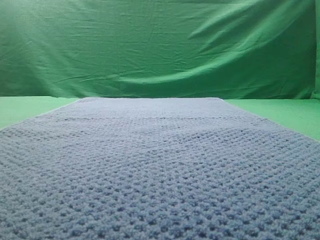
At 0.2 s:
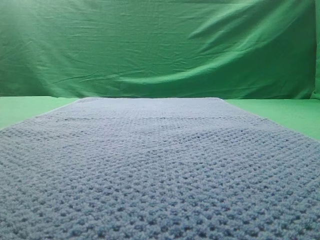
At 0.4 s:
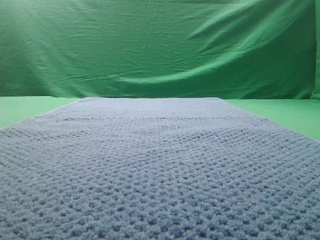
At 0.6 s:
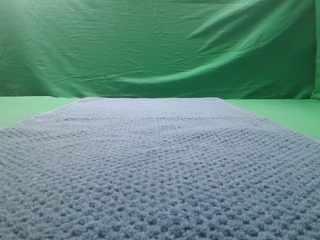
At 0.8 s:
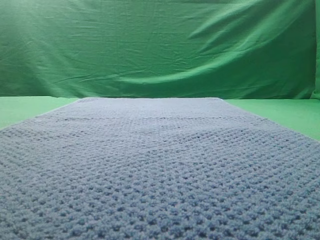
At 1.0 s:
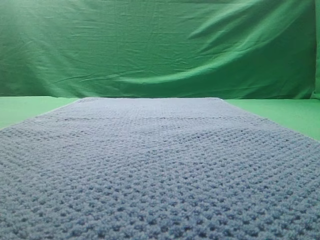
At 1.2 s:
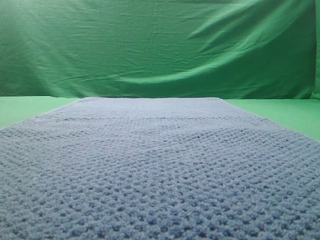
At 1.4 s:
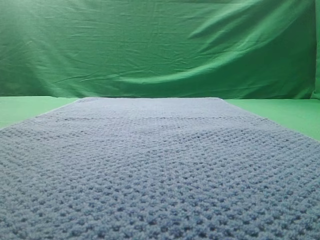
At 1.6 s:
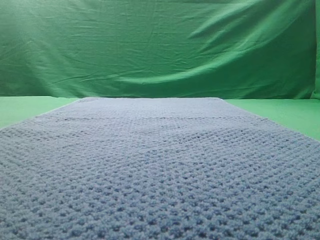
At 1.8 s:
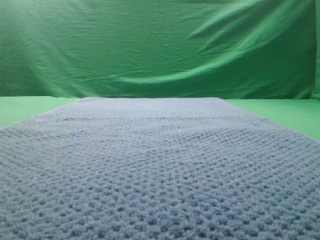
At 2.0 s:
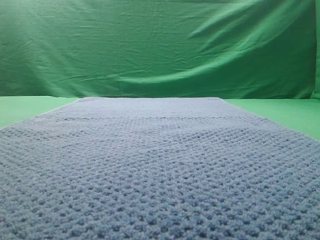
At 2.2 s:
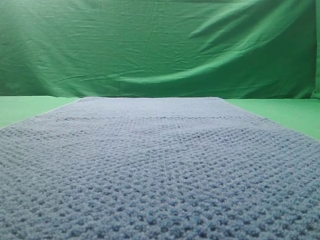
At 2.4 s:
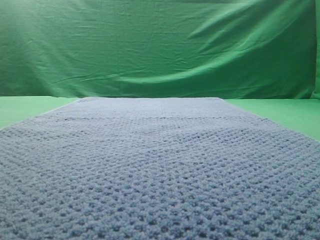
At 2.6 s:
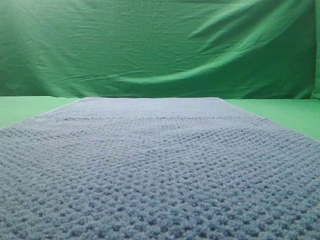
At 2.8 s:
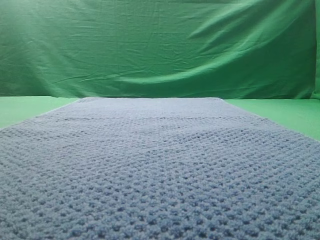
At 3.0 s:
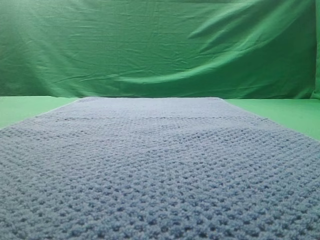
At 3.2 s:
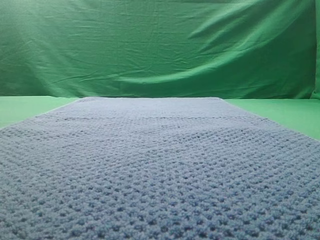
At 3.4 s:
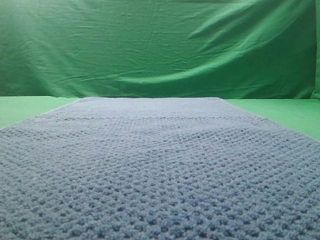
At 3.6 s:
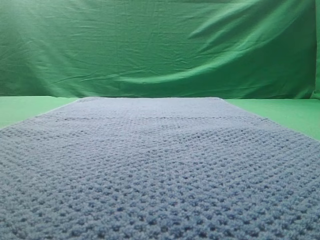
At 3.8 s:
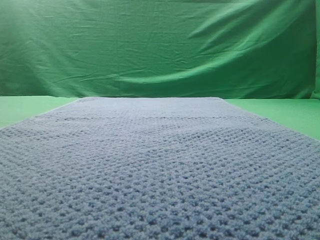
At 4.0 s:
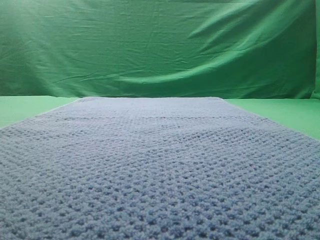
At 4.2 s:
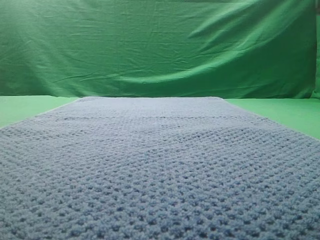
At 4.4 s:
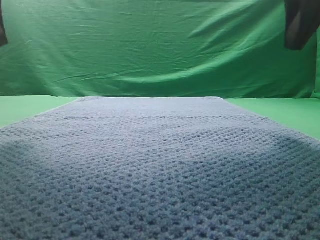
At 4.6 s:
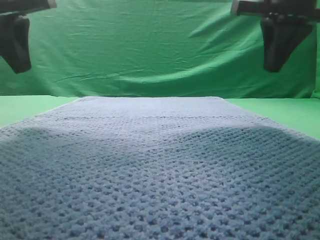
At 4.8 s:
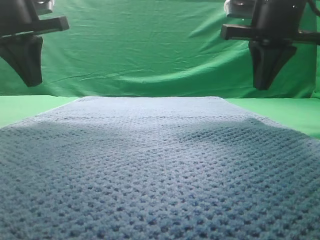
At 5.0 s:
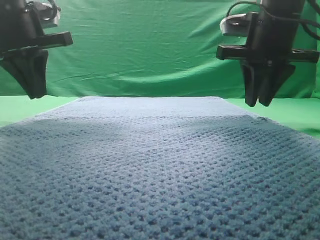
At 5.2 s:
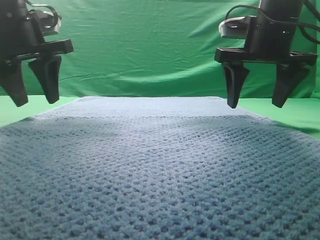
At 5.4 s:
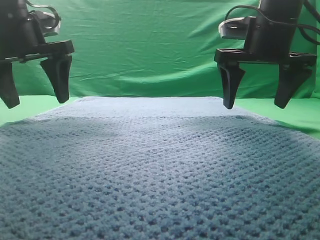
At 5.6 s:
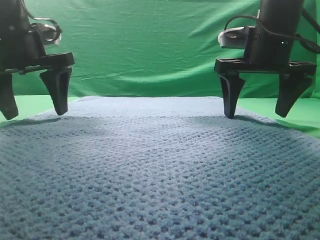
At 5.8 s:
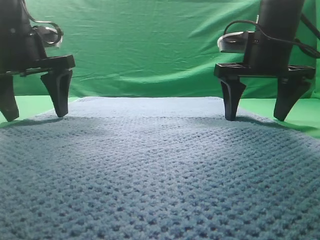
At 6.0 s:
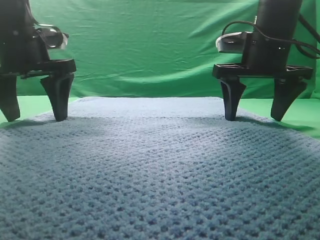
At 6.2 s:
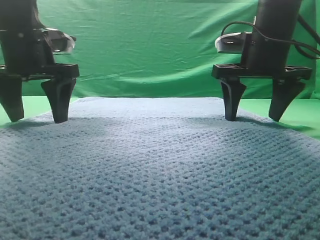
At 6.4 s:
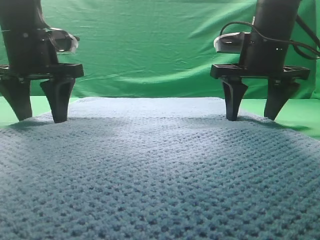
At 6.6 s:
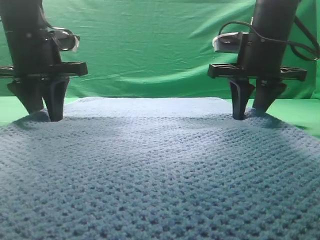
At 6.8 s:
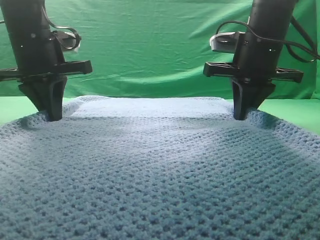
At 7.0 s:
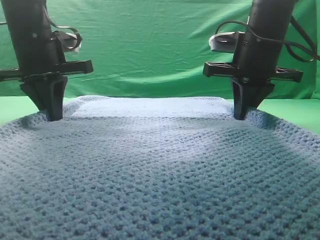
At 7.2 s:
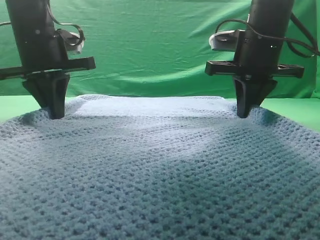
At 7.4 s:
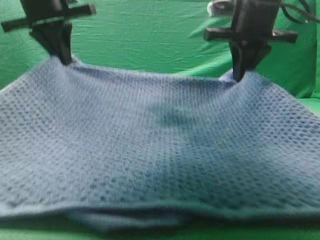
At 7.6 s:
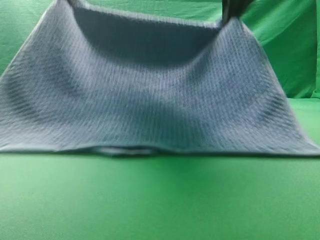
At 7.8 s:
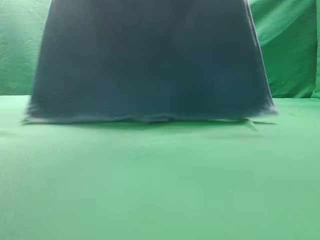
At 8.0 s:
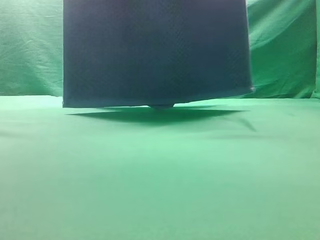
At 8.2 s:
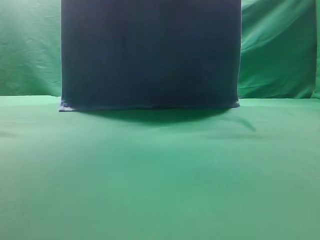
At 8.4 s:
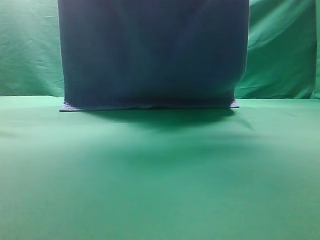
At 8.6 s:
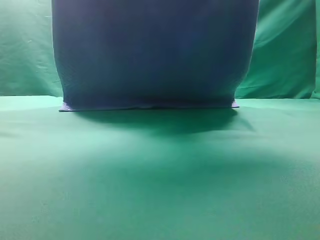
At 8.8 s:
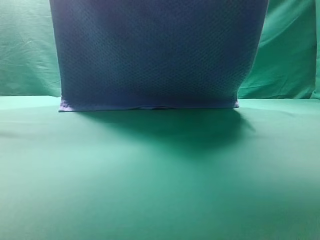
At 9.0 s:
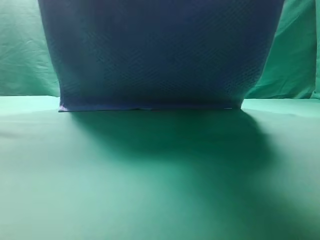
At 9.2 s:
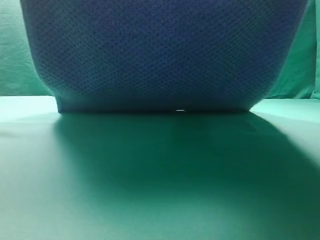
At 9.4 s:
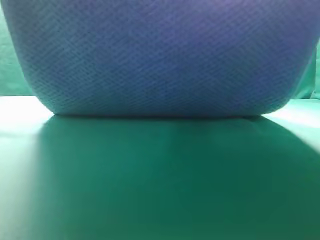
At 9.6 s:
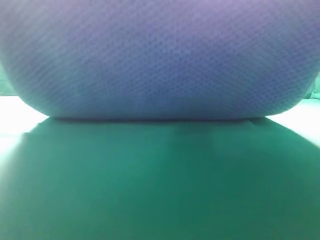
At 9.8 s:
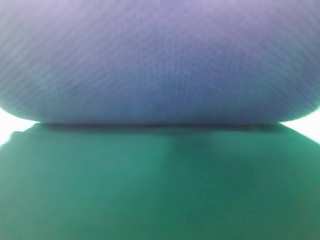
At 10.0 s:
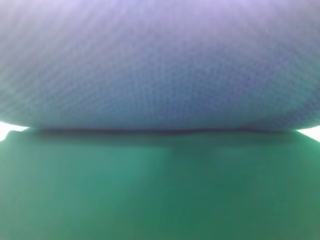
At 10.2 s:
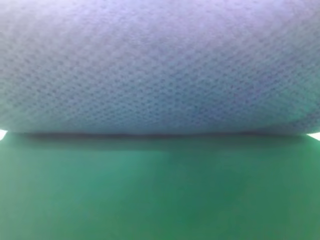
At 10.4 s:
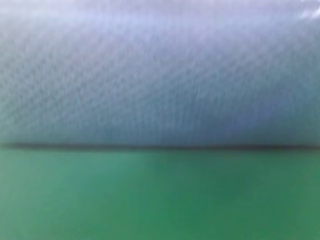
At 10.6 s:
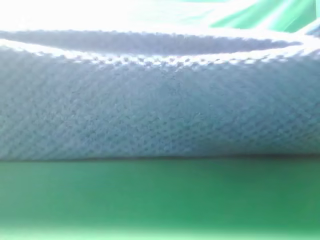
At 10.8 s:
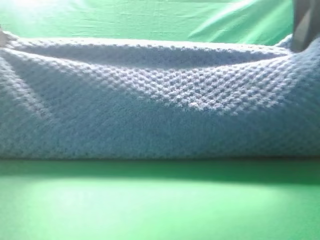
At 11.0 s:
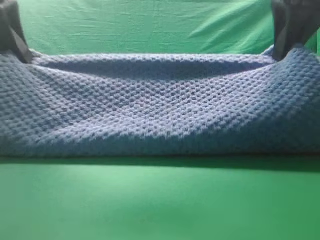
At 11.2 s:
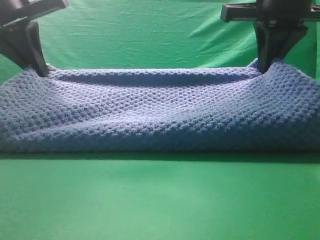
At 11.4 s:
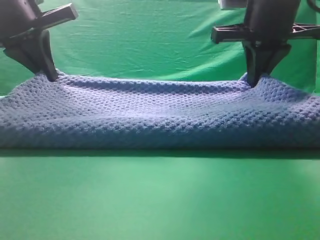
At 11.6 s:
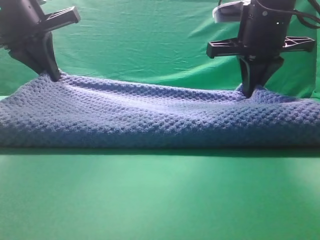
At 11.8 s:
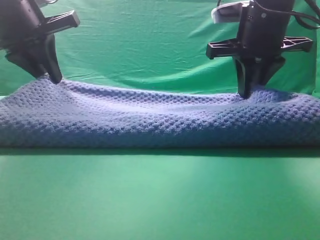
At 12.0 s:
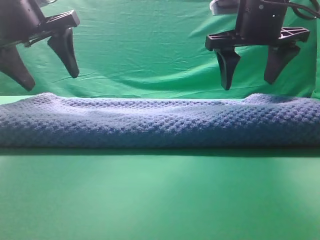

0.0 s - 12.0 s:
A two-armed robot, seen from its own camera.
Task of the whole recording: fold the towel on the table twice.
Step, 0.0 s - 7.8 s: pick up the towel with two arm.
Step, 8.0 s - 12.0 s: Fold the towel twice on the table.

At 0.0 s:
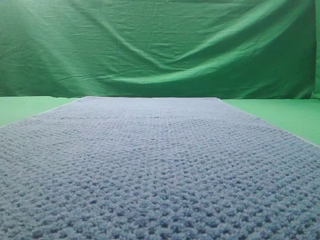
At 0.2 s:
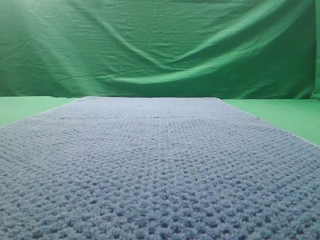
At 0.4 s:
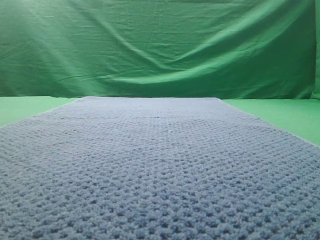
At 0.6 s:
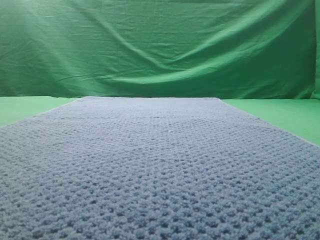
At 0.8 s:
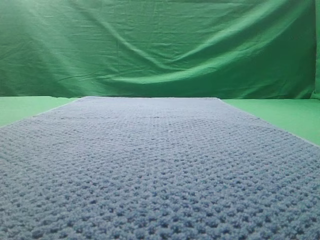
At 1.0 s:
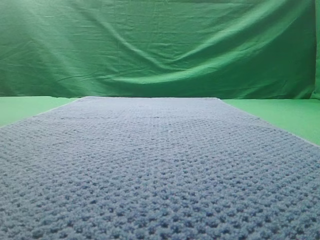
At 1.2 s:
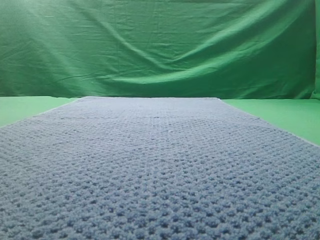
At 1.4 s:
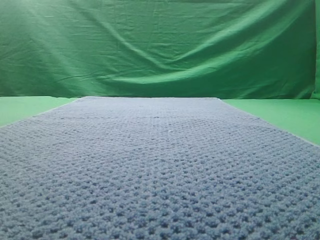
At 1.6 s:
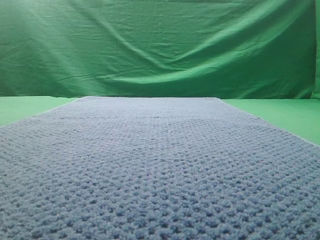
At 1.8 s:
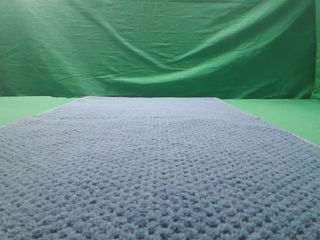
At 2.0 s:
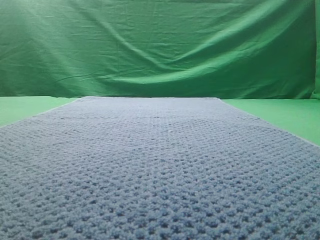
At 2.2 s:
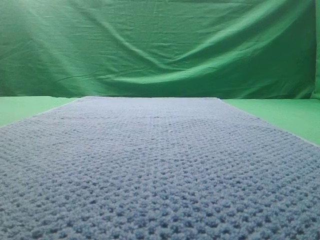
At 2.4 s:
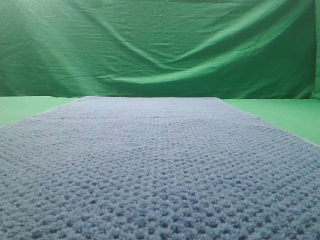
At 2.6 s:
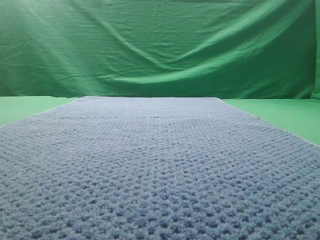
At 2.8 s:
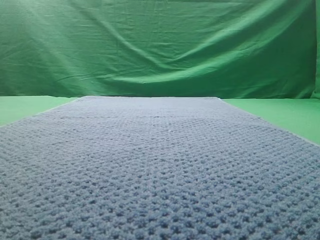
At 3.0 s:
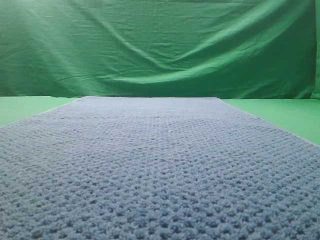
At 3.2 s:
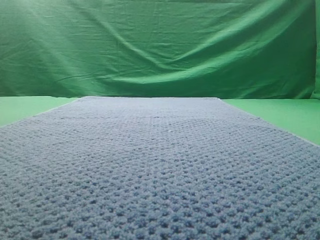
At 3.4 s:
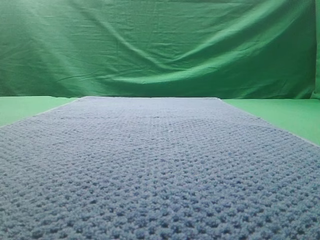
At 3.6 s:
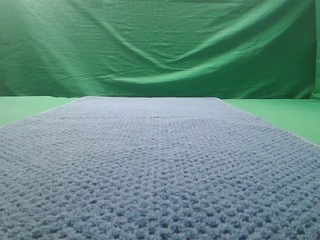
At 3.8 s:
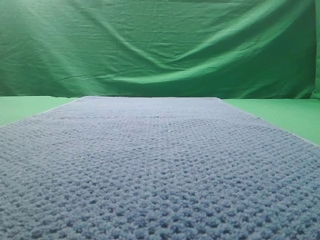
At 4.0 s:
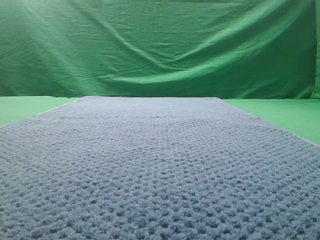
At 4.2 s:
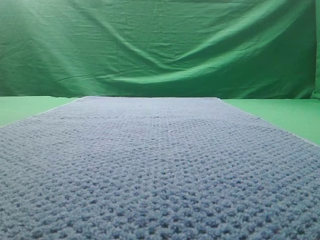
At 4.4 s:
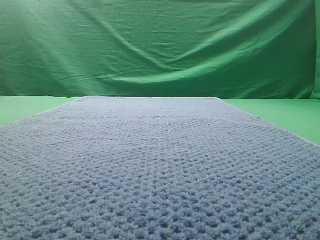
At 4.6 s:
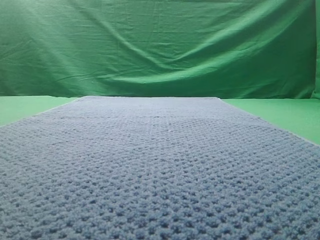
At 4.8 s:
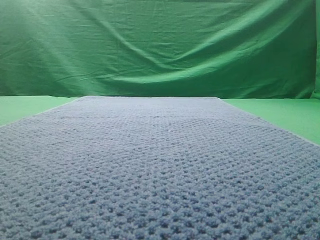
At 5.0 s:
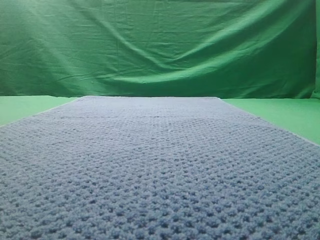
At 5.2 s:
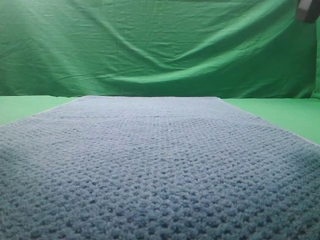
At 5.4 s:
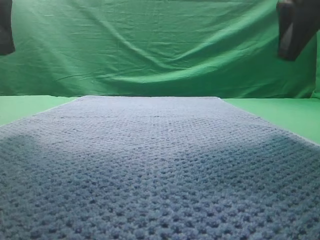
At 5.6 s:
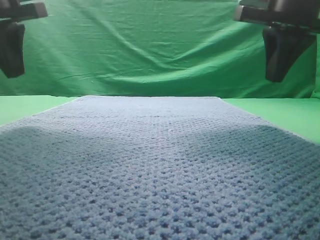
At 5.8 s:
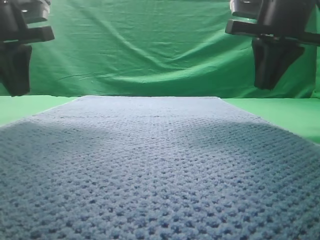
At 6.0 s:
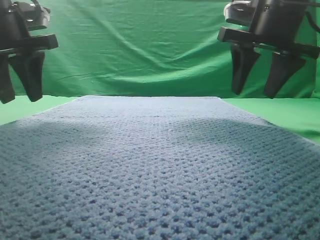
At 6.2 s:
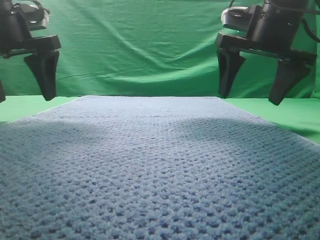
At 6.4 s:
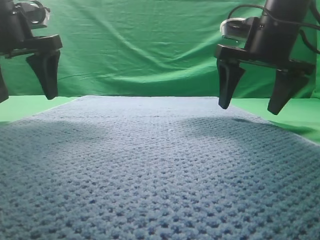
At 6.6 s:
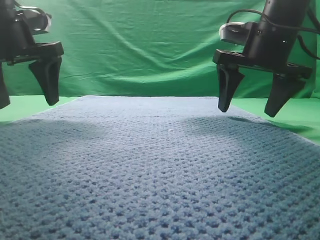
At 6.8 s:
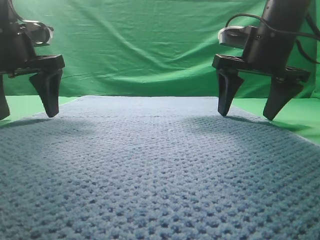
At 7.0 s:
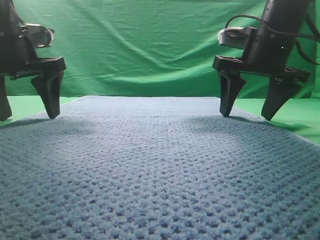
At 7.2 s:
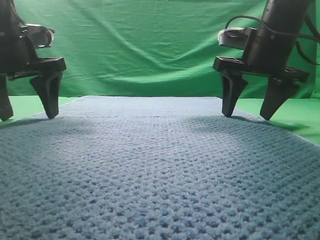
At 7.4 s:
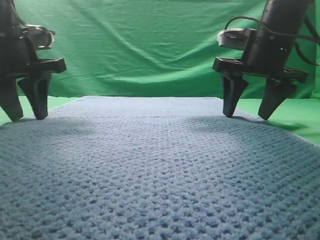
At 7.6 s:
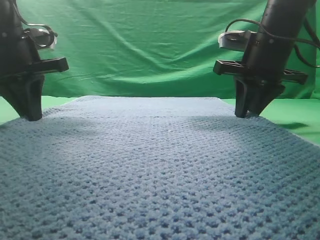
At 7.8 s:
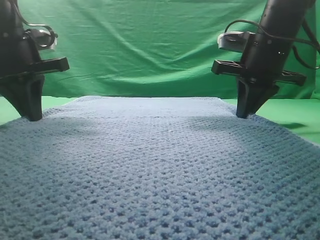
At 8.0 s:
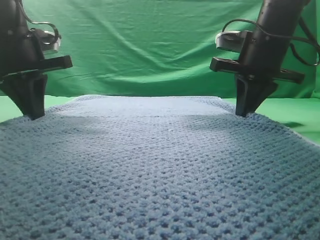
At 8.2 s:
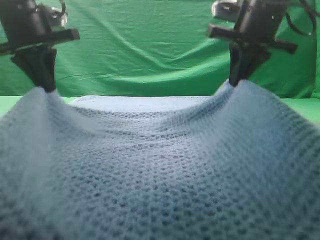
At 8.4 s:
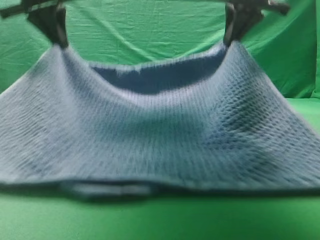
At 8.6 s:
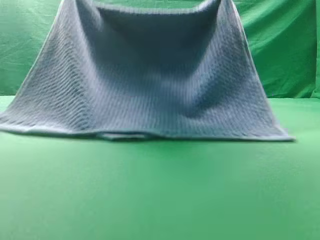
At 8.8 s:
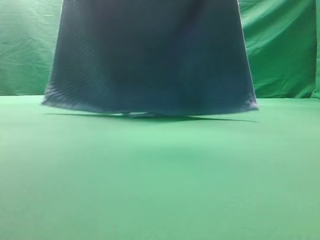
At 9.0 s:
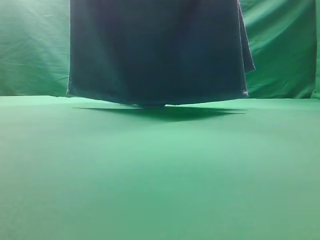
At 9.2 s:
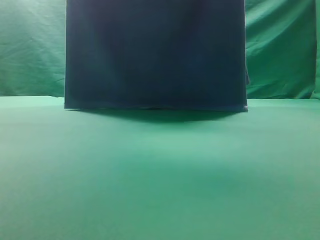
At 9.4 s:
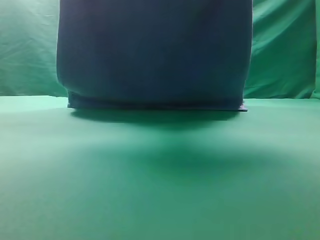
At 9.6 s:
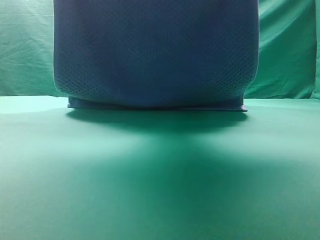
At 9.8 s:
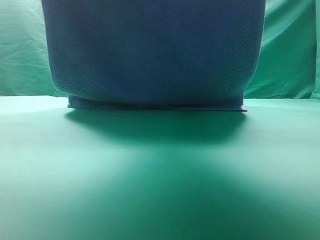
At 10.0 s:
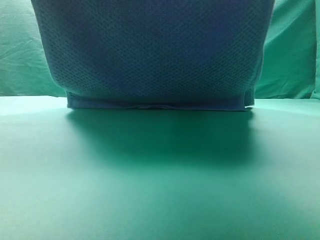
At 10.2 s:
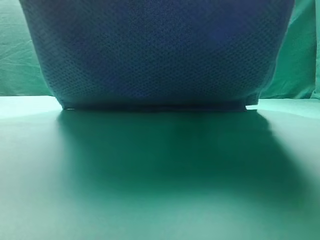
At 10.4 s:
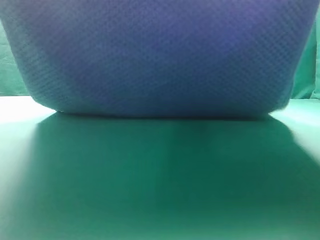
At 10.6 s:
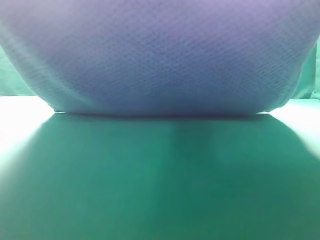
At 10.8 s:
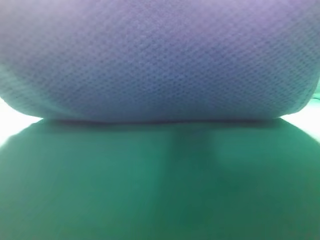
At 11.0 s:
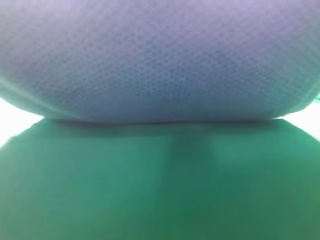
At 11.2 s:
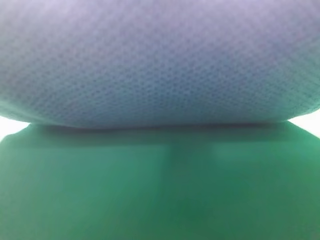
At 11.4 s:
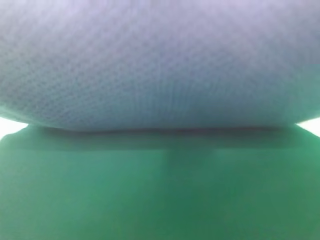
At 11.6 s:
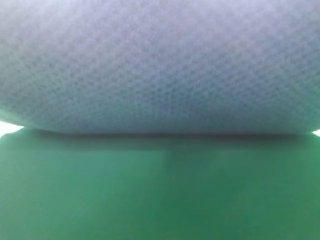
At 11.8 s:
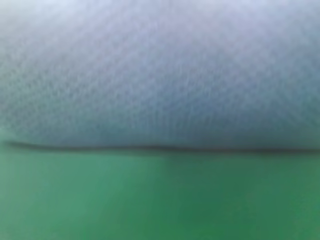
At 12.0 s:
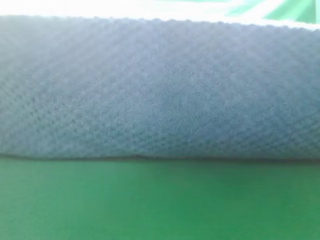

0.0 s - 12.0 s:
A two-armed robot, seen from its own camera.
Task of the whole recording: fold the towel on the table twice.
Step, 0.0 s - 8.8 s: pick up the towel with two arm.
